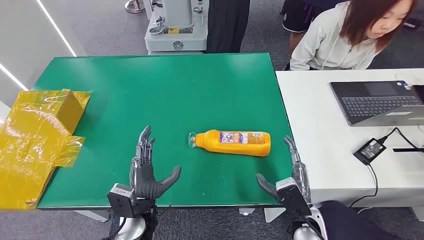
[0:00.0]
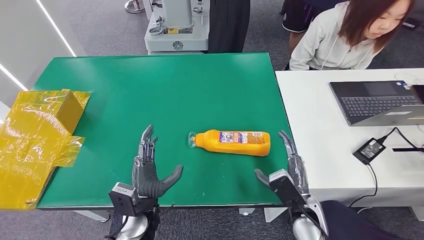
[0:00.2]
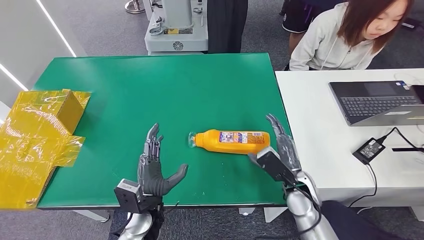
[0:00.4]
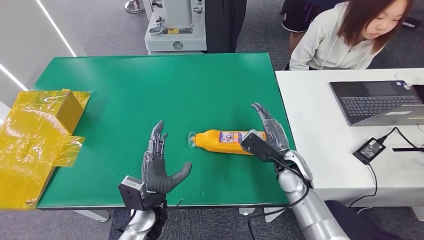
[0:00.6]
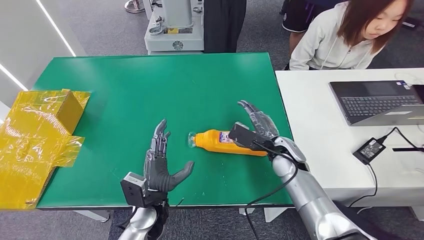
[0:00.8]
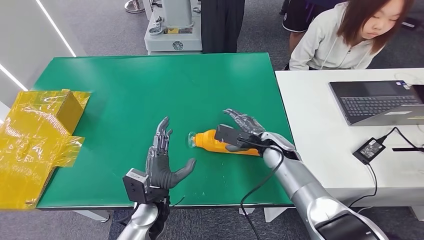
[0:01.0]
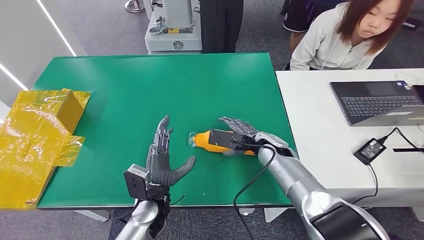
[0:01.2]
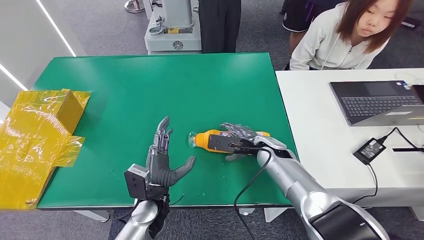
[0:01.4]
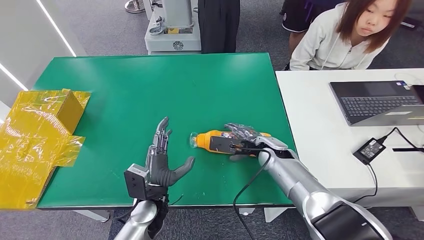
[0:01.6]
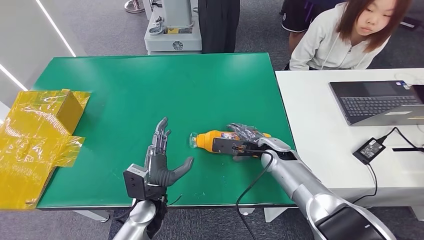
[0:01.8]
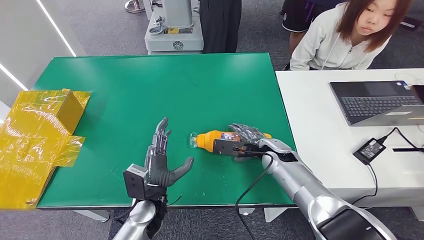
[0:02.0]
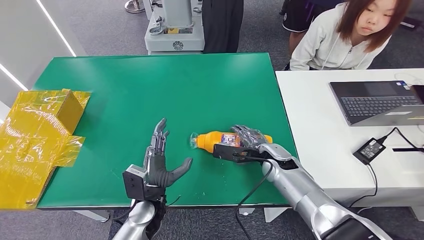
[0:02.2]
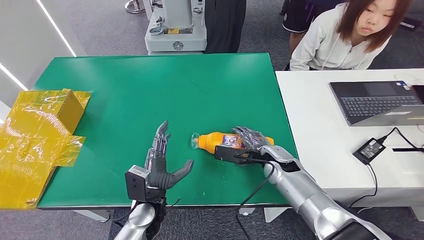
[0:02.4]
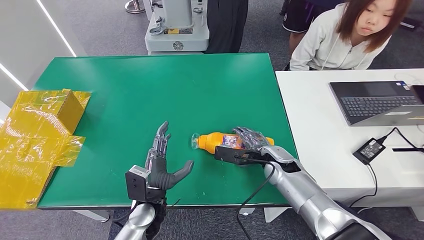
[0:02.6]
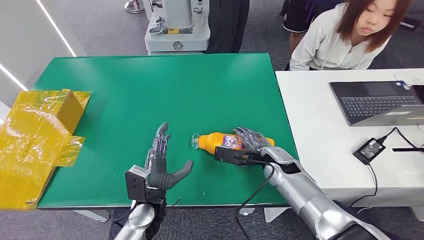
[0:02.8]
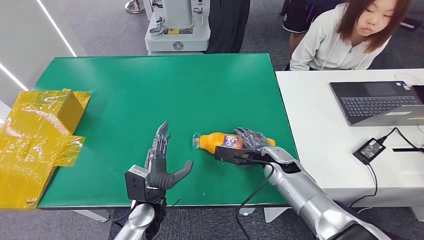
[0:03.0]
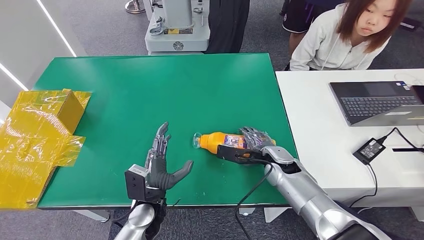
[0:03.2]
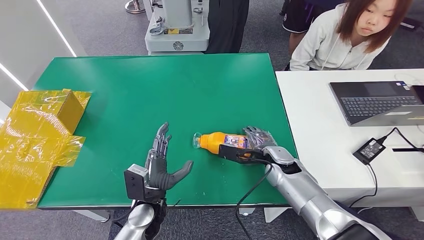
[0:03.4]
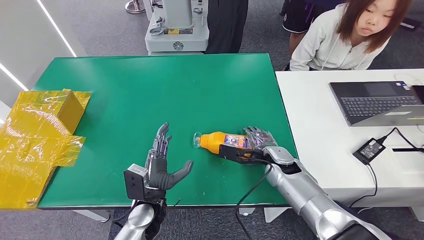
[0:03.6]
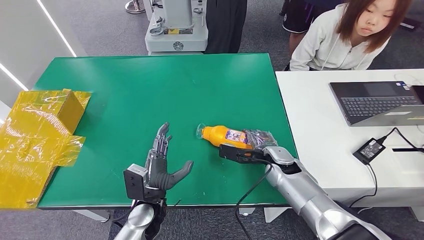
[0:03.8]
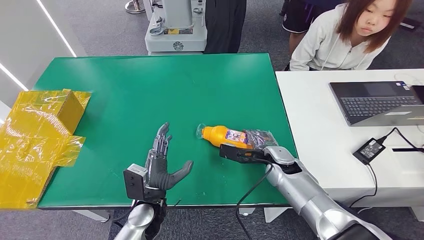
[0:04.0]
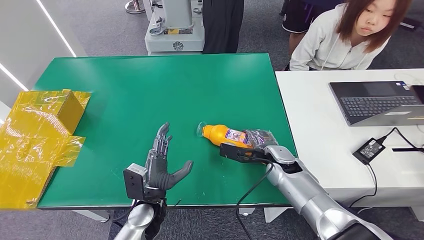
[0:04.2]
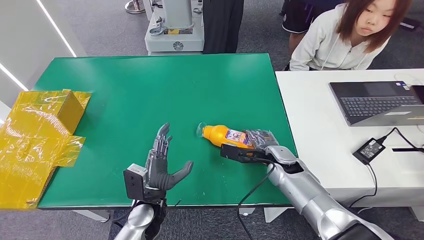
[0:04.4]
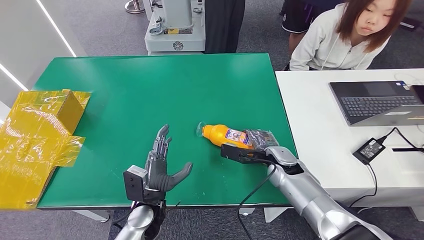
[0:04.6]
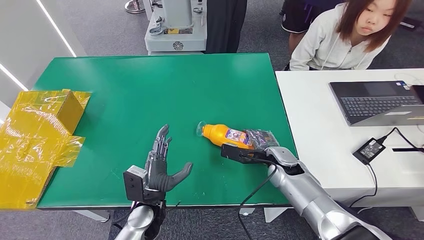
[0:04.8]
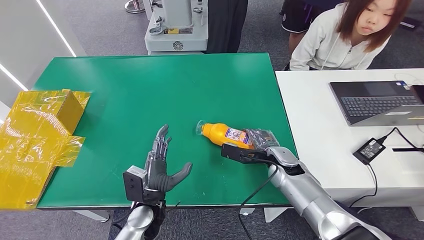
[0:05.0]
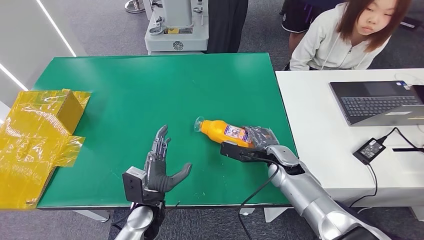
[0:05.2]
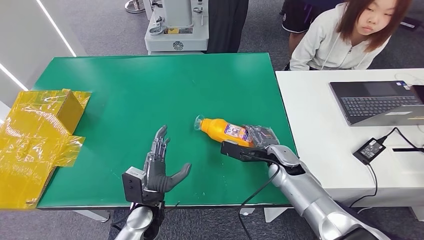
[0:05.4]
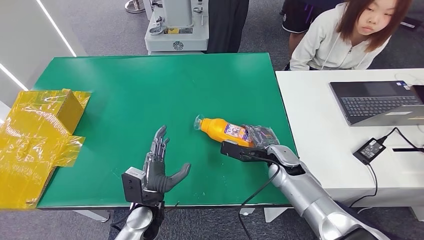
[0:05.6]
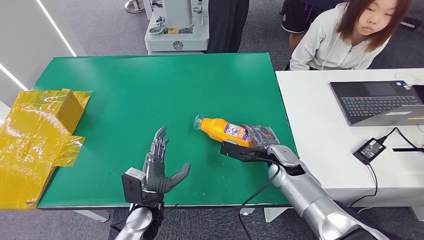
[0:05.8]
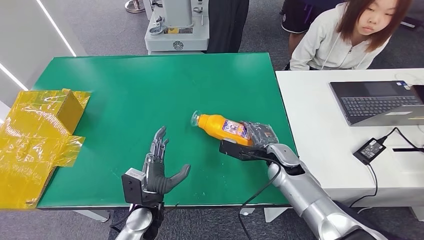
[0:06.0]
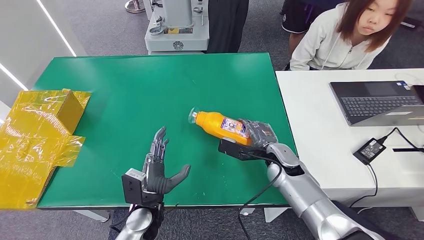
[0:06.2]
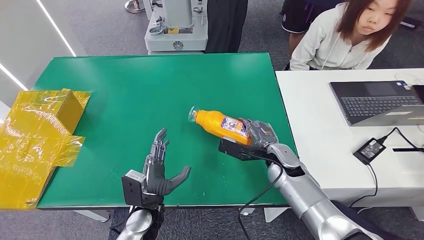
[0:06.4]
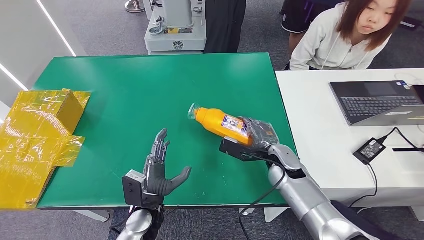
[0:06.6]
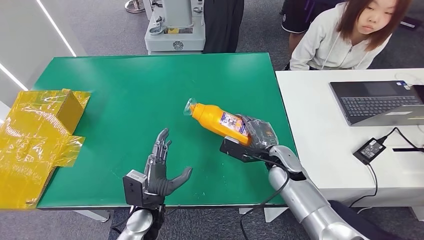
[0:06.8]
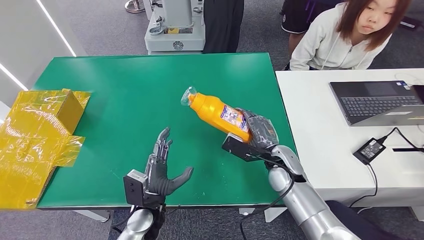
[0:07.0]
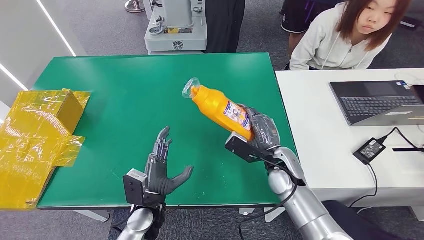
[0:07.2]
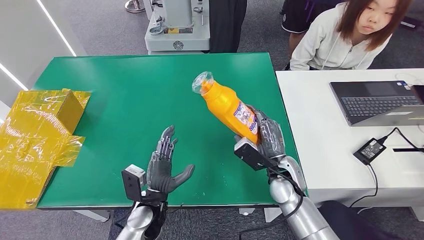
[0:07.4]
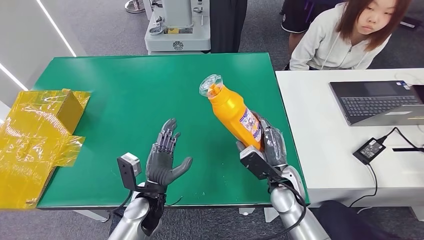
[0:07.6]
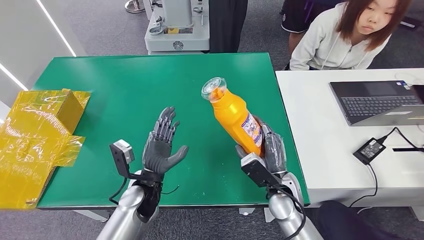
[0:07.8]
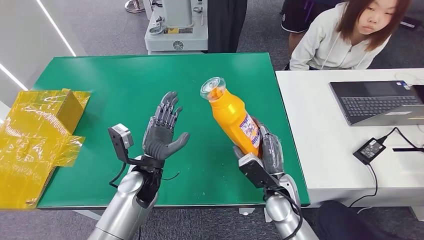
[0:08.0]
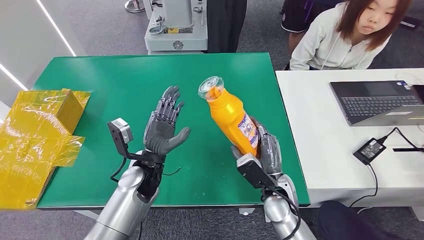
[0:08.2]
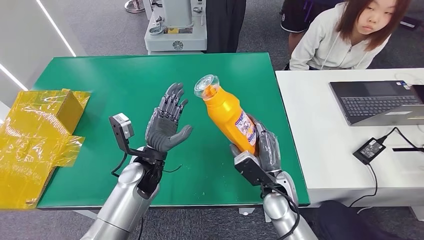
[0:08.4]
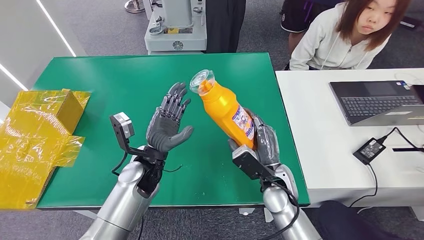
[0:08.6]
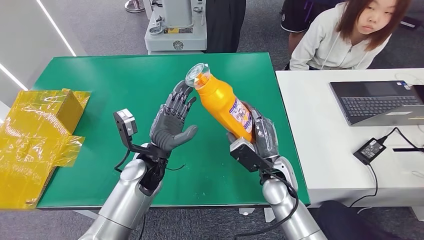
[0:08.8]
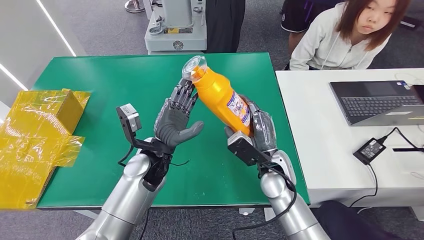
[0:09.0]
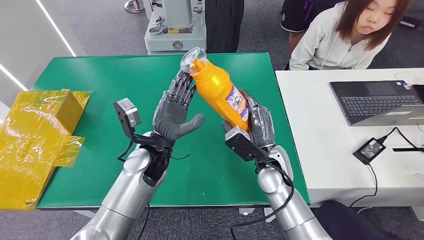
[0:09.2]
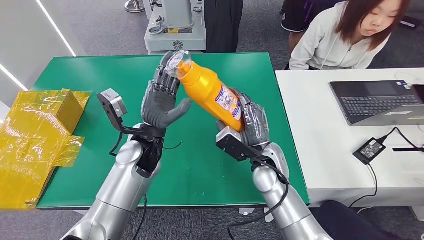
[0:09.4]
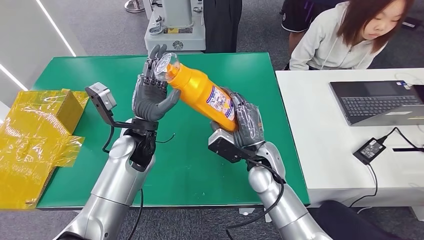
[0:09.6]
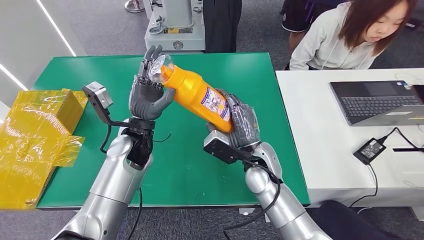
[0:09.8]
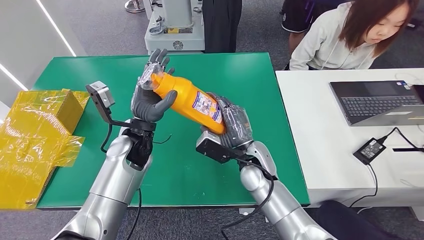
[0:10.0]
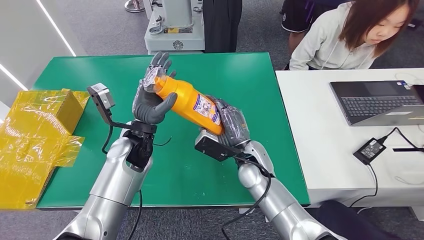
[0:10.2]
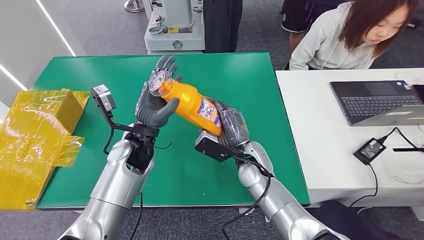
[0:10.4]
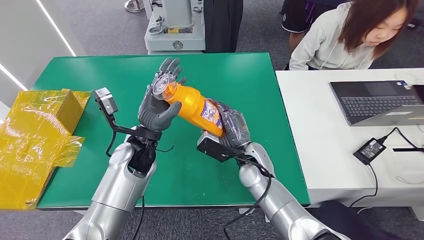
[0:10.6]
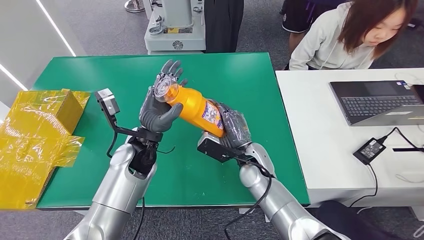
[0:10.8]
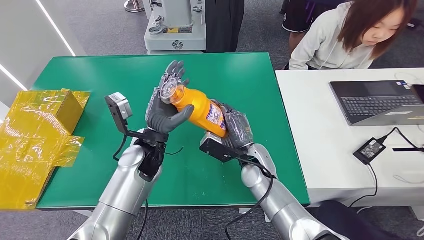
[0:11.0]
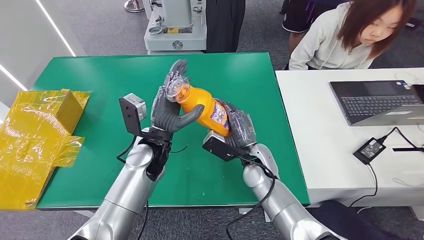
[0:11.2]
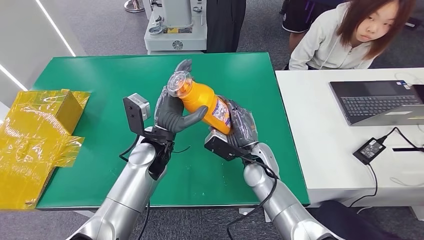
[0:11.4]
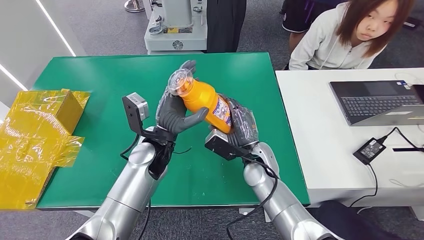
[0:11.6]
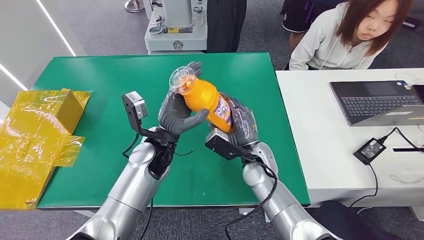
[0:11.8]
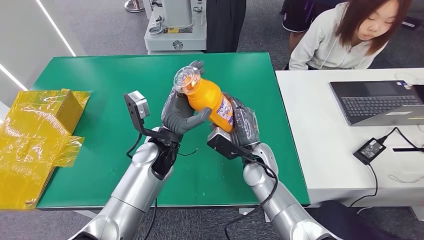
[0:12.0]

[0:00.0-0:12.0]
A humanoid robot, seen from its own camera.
Step, 0:00.0 to 0:08.2: Pick up the bottle from the table.
0:01.6 to 0:06.0: The hands move only a little.
0:06.0 to 0:07.6: The right hand goes roughly 5 cm backward.
0:07.6 to 0:09.0: The left hand shifts approximately 10 cm upward and forward, while the right hand ends up approximately 5 cm from where it was.
0:10.4 to 0:12.0: The left hand goes roughly 5 cm to the right.

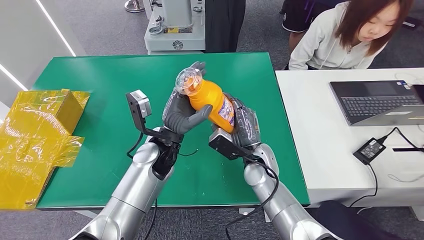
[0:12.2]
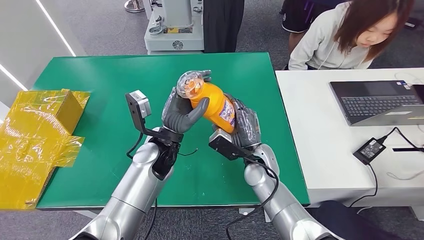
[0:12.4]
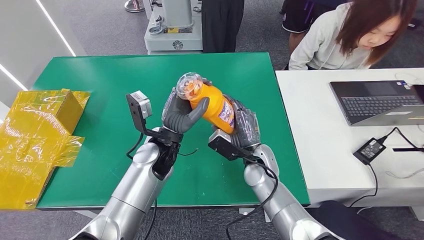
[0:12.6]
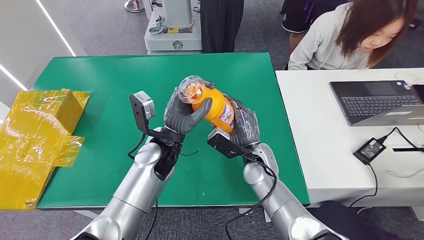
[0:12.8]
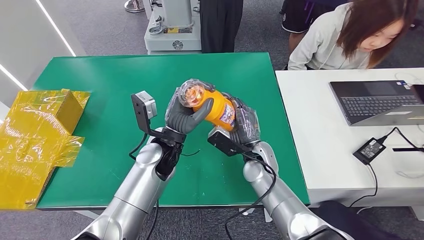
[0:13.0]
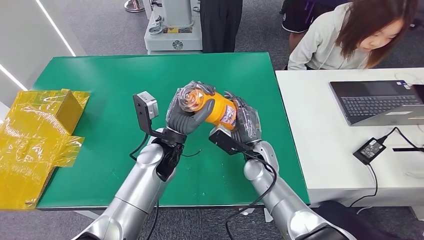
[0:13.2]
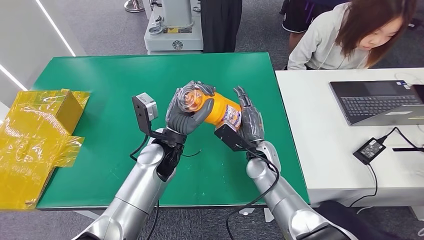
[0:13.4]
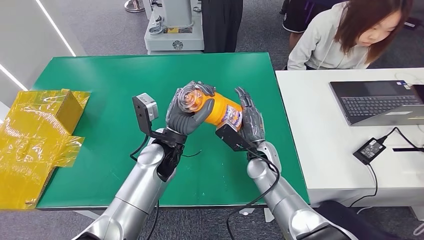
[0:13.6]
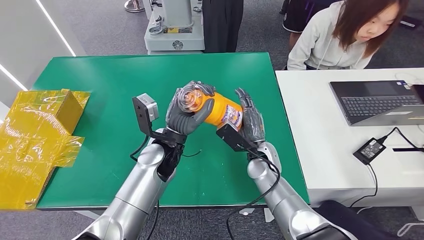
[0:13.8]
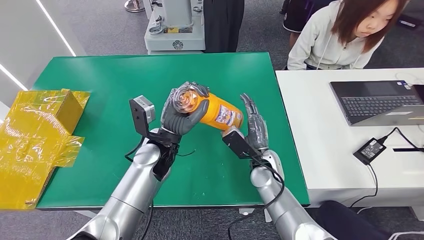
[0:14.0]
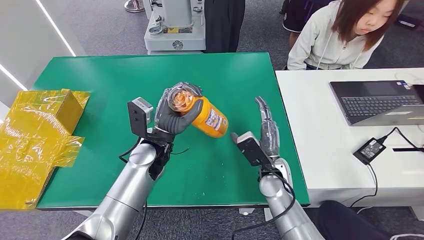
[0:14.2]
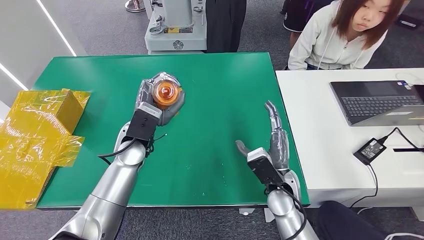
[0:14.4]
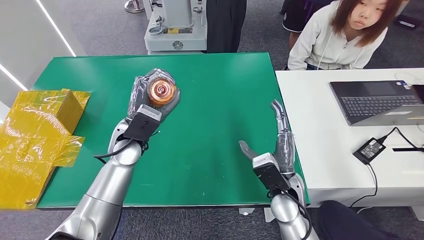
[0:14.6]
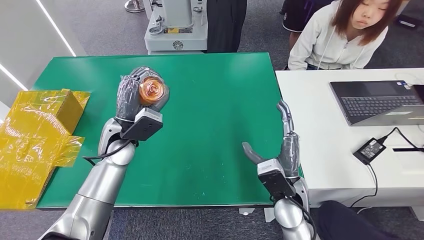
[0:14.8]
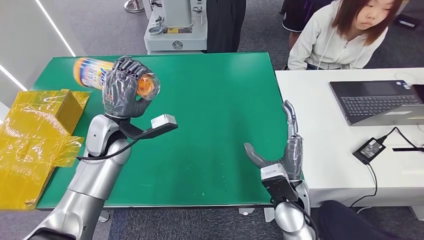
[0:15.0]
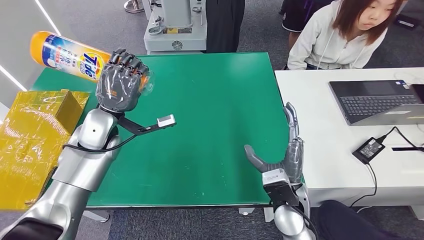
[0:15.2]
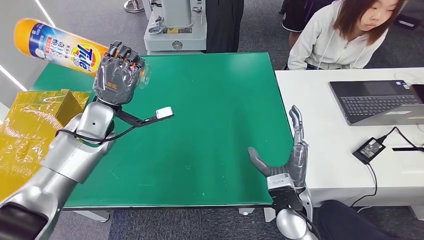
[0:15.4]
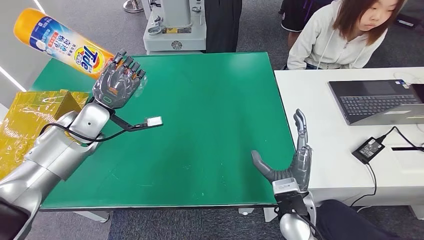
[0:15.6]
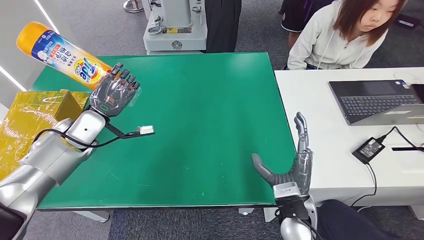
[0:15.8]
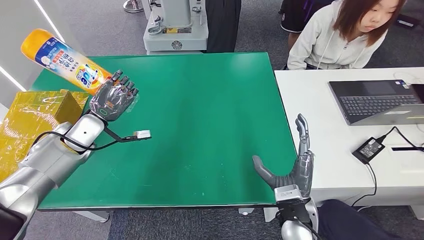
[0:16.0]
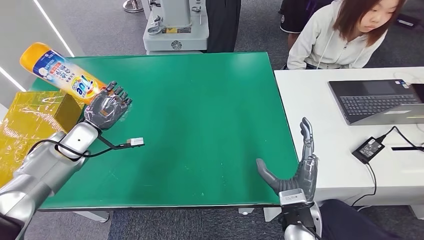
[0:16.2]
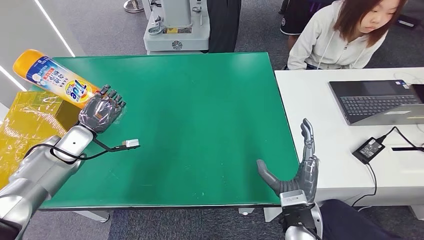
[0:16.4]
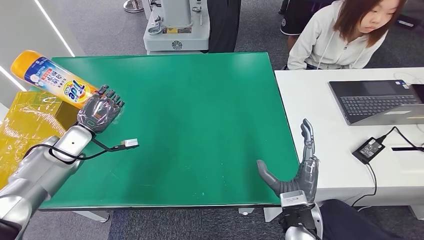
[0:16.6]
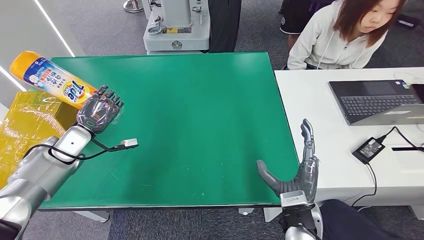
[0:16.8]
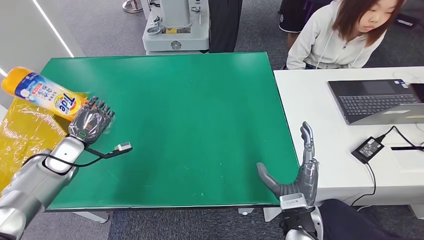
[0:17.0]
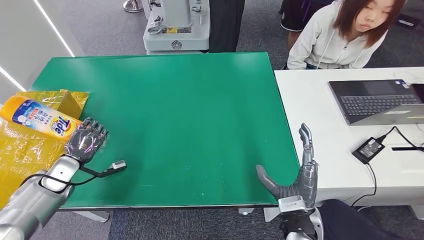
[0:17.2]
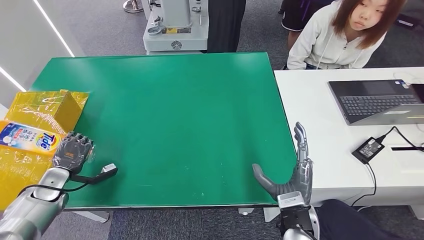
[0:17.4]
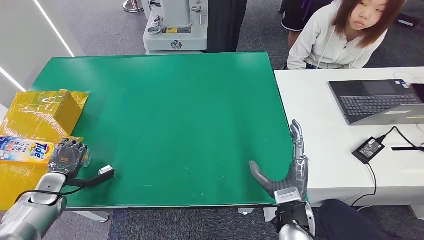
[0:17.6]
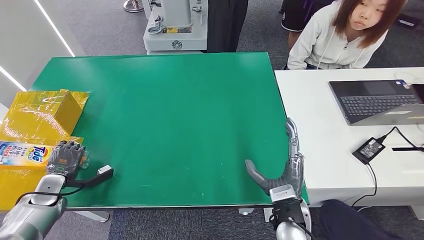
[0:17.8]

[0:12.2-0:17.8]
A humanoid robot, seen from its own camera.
Step, 0:12.2 to 0:17.8: Turn the bottle to the front side.
0:12.2 to 0:13.6: The hands make only small movements.
0:16.4 to 0:17.8: The left hand shifts about 20 cm downward, backward and to the left.
